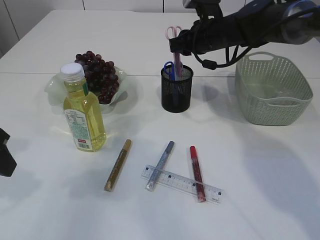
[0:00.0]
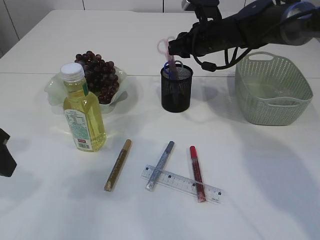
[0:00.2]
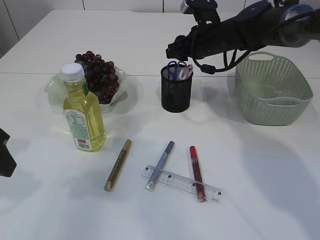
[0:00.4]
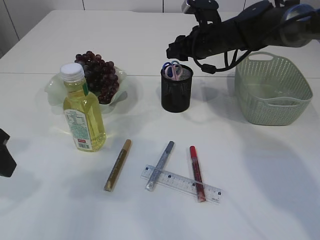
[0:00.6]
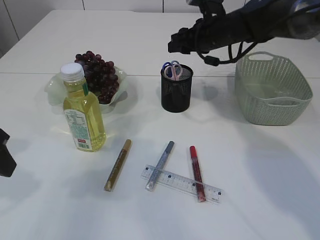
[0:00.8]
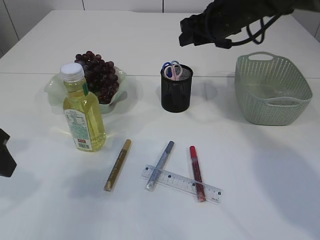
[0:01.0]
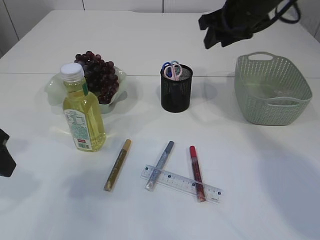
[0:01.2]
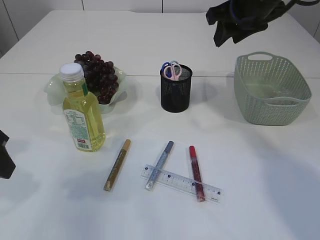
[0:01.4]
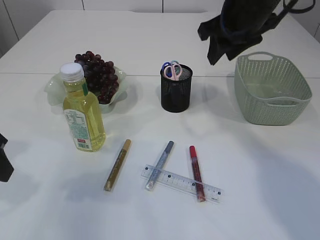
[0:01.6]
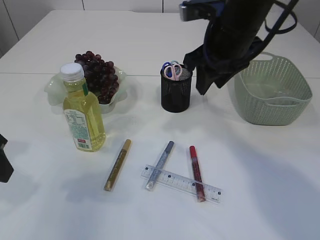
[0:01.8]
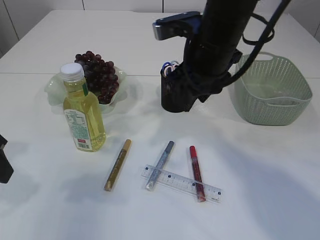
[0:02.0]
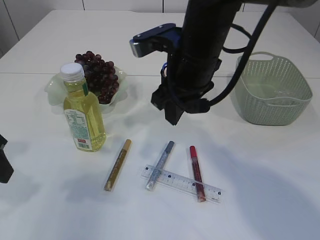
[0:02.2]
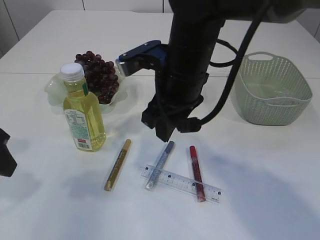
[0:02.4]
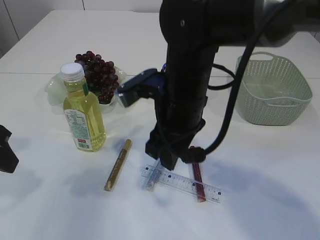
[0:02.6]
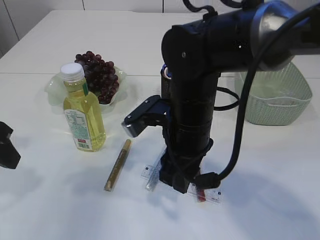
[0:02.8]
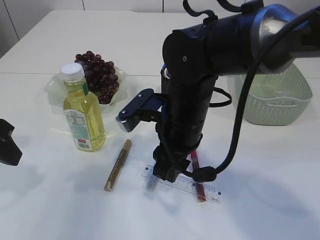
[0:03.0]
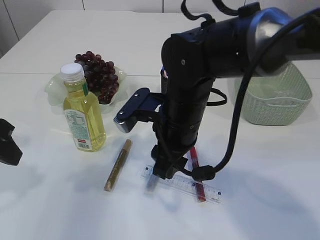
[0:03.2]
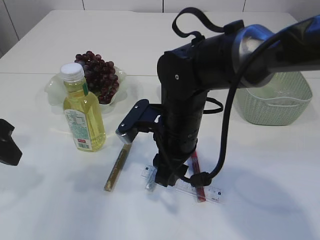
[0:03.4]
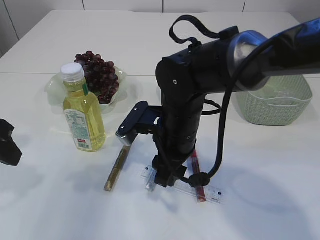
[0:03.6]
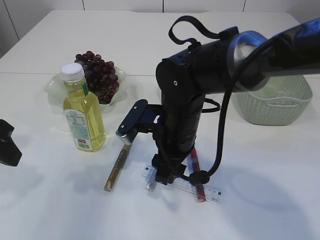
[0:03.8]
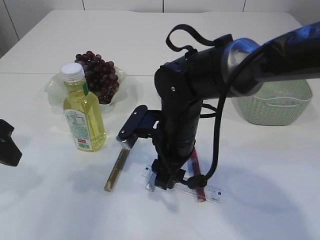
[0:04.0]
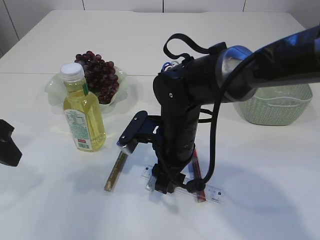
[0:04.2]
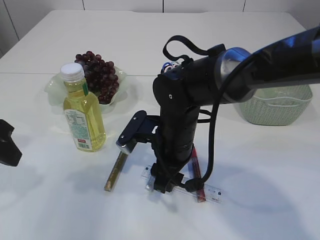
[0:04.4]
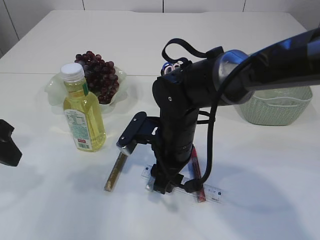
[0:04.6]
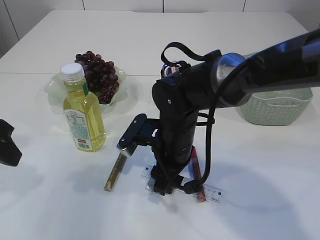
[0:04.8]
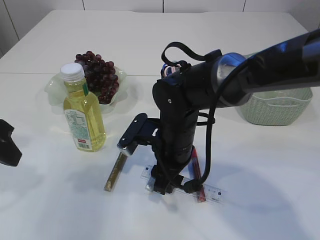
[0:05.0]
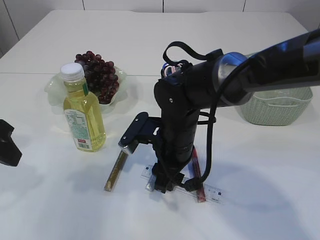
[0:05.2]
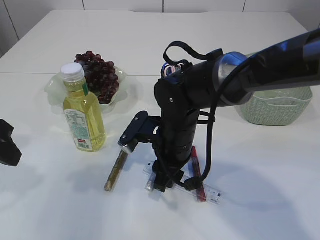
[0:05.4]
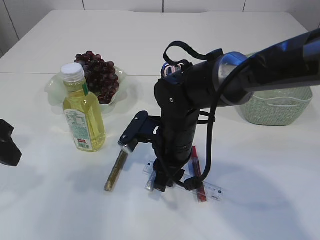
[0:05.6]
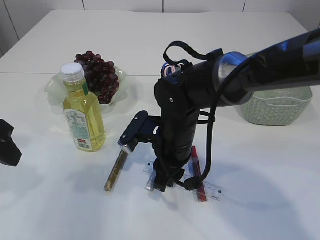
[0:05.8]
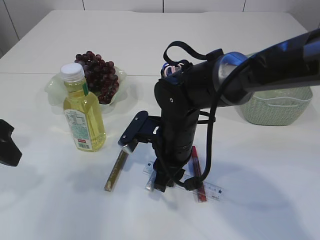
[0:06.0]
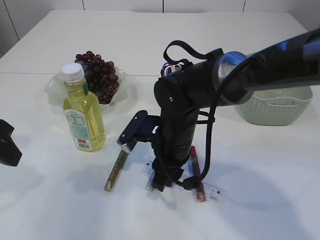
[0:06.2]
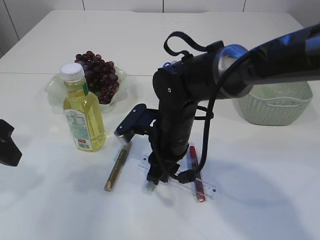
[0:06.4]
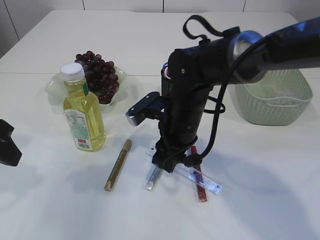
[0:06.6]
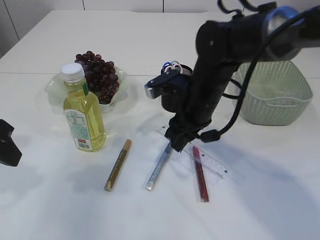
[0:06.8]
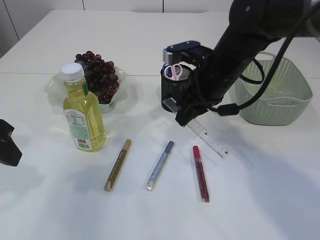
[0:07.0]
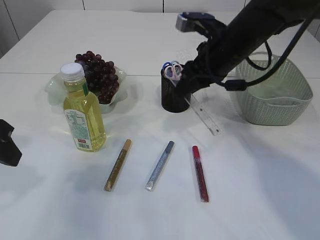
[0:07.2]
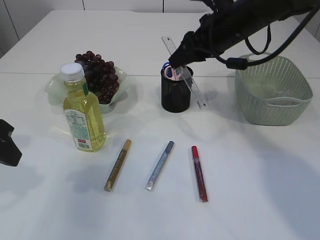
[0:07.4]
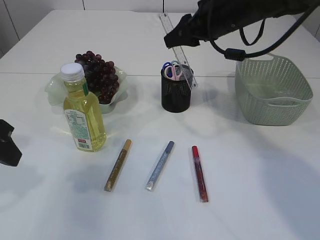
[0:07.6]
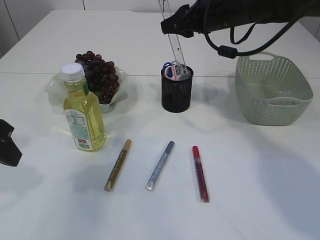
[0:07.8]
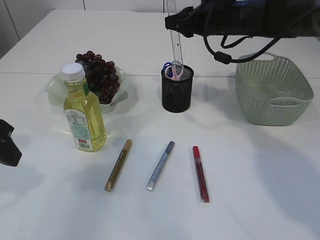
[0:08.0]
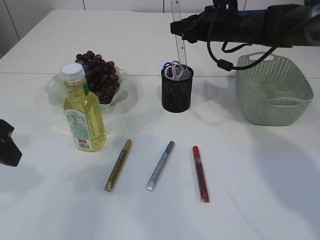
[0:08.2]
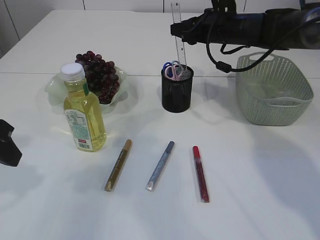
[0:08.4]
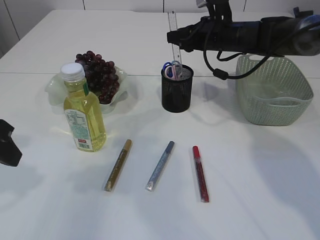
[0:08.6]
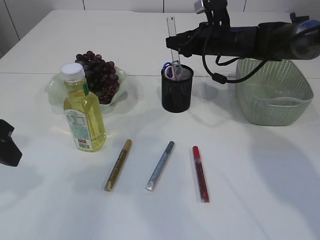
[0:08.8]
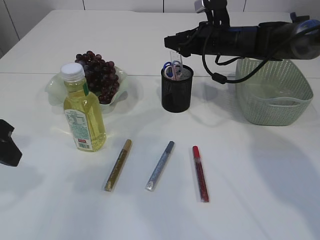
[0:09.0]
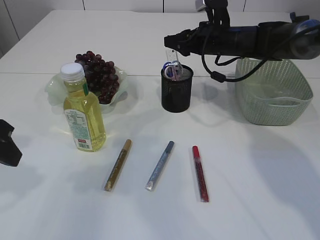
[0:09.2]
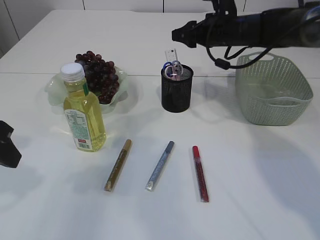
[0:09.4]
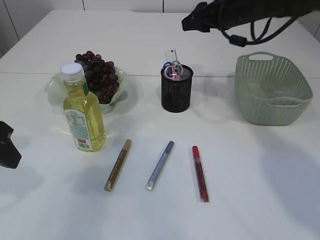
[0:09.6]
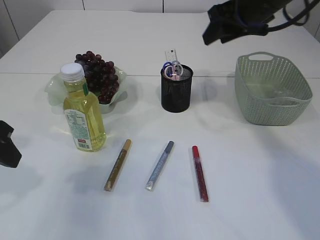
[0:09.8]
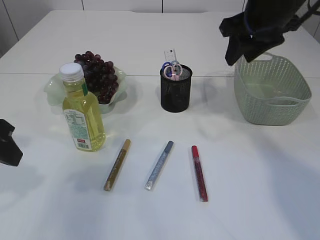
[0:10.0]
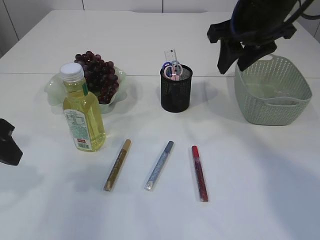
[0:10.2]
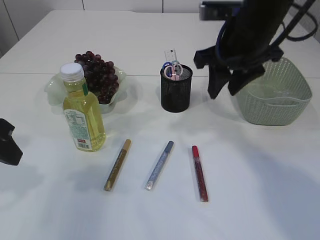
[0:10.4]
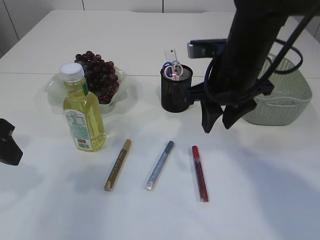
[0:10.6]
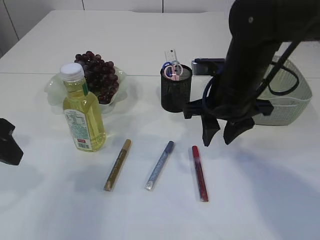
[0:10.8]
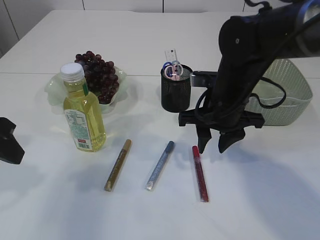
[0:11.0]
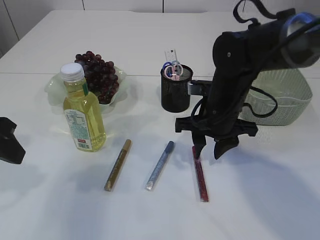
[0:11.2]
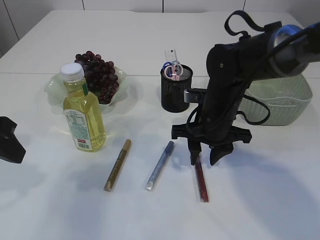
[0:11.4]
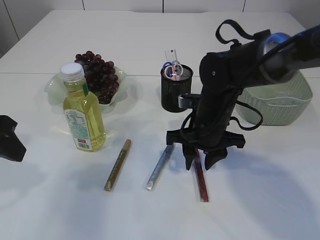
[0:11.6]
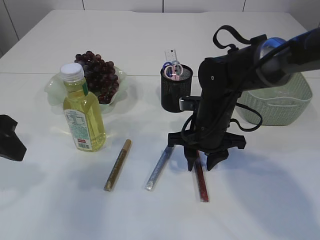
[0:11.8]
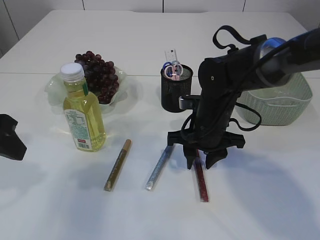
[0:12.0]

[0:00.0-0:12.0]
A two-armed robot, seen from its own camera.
Step, 0:01.0 to 0:06.6: pick up the ruler.
Step, 0:06.8 to 0:09.4: Place the ruler into the pen holder.
0:00.0 to 0:01.6: The right gripper moves backward and upward, roughly 15 cm.
0:01.6 to 0:03.0: The right gripper travels downward, to the left and backward by some 20 cm.
0:03.0 to 0:04.4: The right gripper goes about 5 cm downward.
0:04.4 to 0:06.0: Both grippers stay put.
0:06.0 to 0:07.6: The right gripper is displaced upward, to the right and forward by some 20 cm.
0:07.6 to 0:09.0: The right gripper shifts roughly 10 cm downward and forward.
0:09.0 to 0:10.4: The right gripper heads backward and upward, covering approximately 15 cm.
0:10.4 to 0:12.0: The right gripper moves downward, about 15 cm.

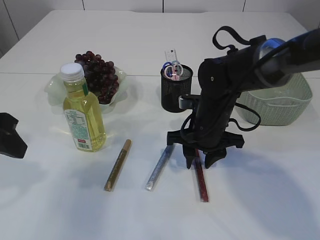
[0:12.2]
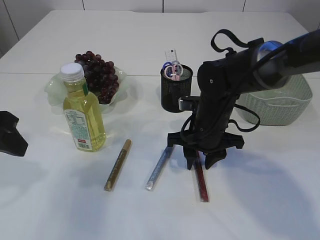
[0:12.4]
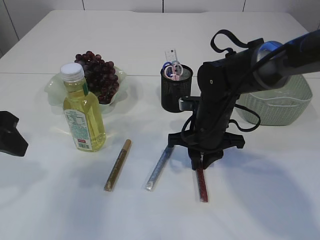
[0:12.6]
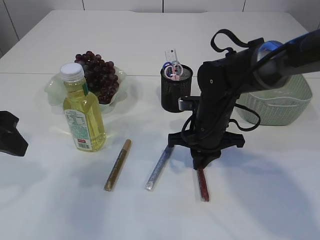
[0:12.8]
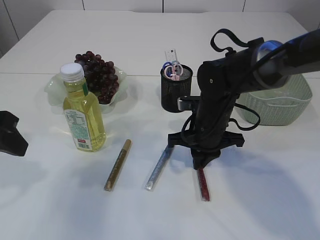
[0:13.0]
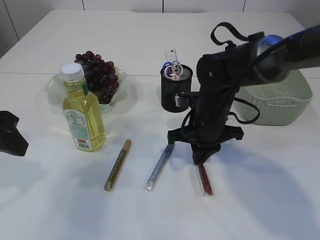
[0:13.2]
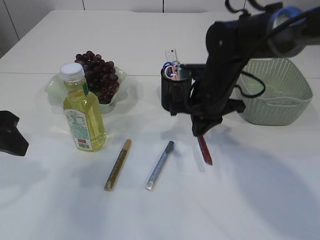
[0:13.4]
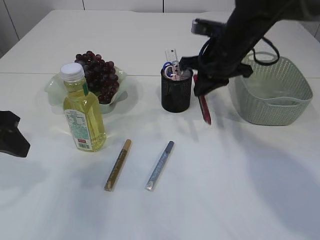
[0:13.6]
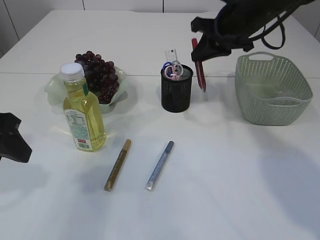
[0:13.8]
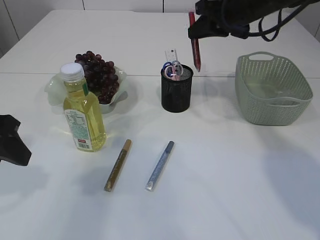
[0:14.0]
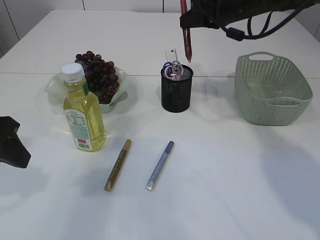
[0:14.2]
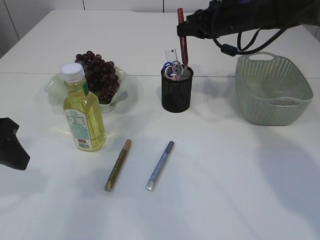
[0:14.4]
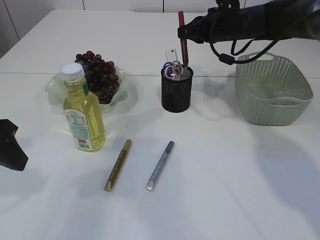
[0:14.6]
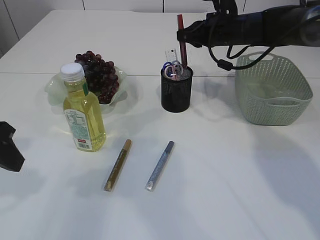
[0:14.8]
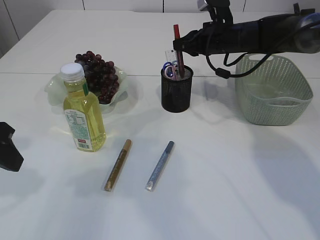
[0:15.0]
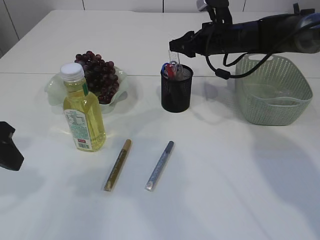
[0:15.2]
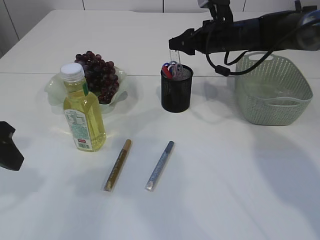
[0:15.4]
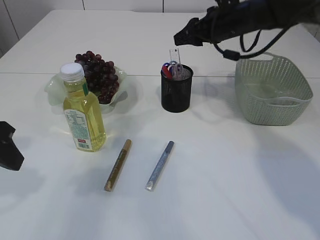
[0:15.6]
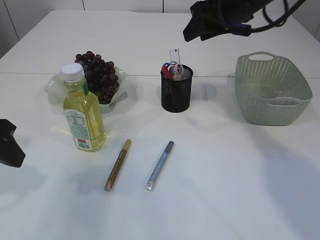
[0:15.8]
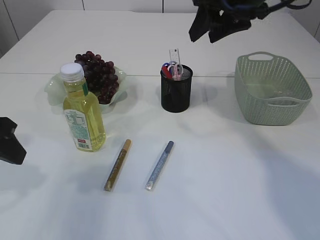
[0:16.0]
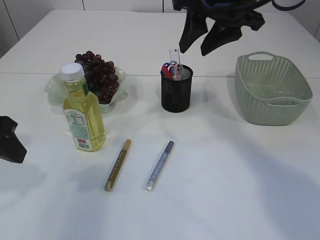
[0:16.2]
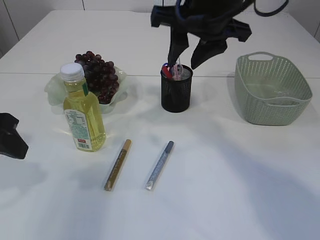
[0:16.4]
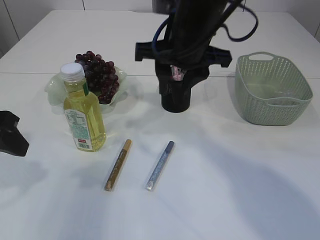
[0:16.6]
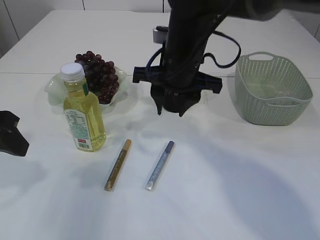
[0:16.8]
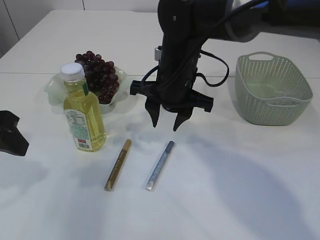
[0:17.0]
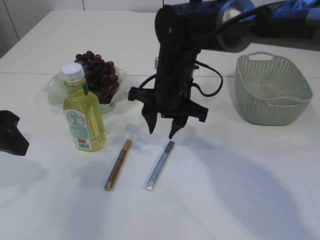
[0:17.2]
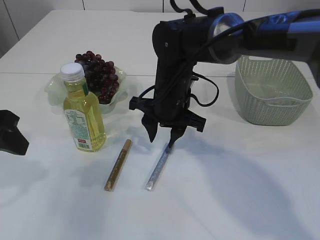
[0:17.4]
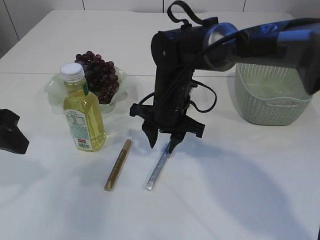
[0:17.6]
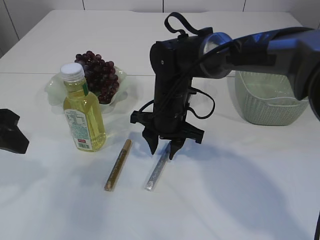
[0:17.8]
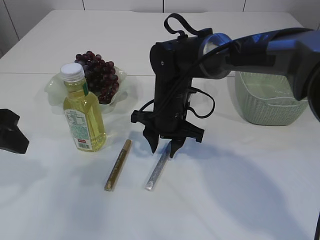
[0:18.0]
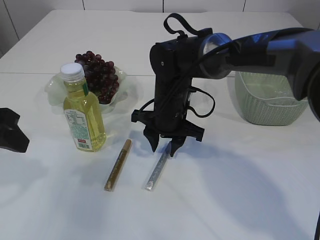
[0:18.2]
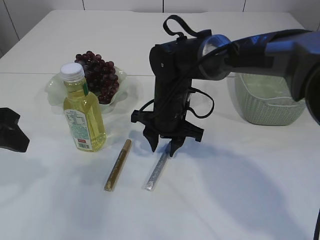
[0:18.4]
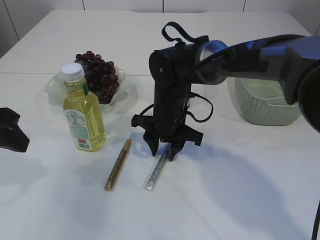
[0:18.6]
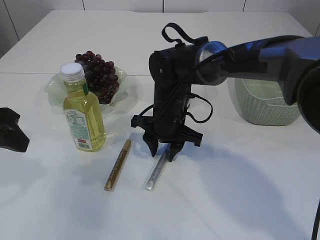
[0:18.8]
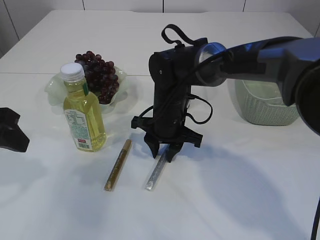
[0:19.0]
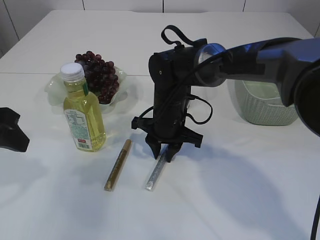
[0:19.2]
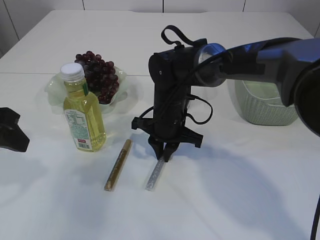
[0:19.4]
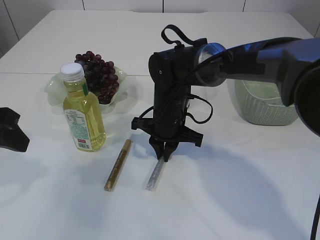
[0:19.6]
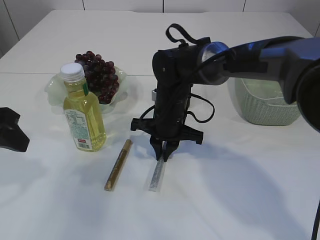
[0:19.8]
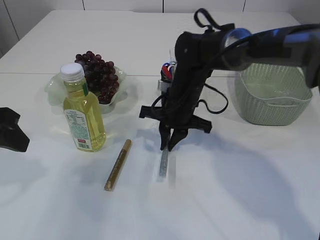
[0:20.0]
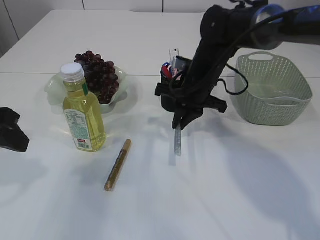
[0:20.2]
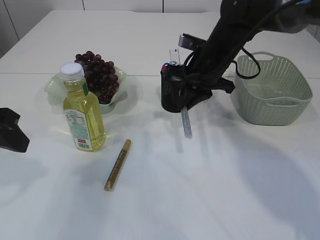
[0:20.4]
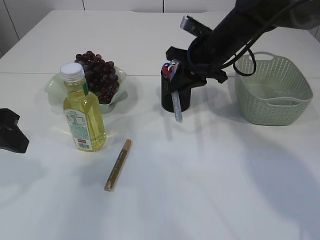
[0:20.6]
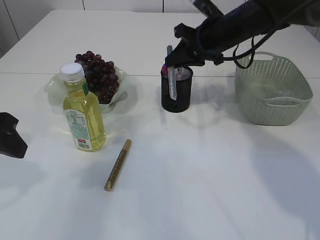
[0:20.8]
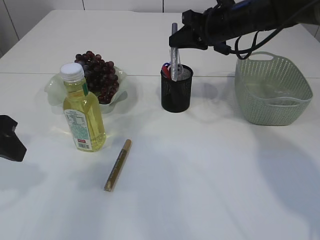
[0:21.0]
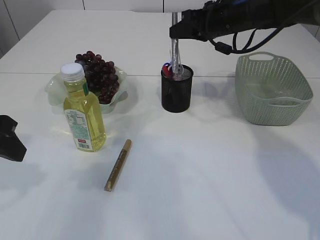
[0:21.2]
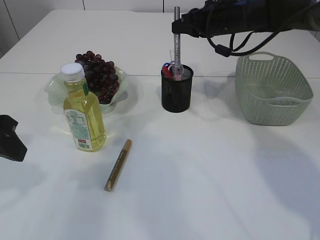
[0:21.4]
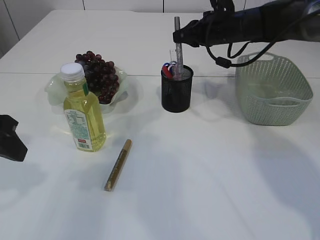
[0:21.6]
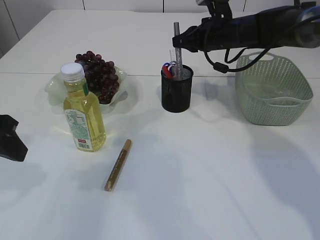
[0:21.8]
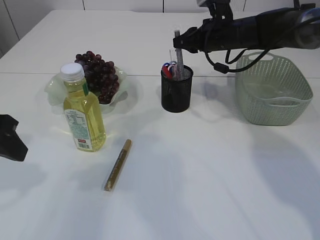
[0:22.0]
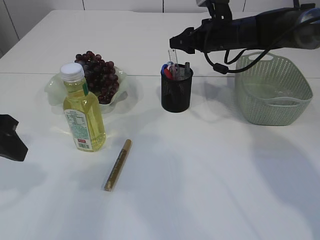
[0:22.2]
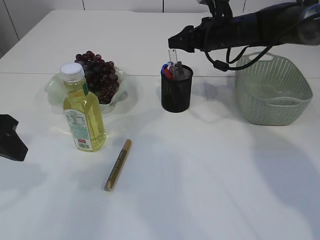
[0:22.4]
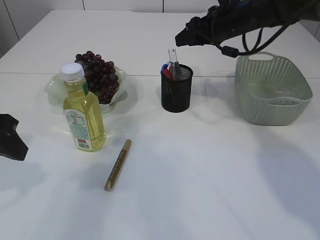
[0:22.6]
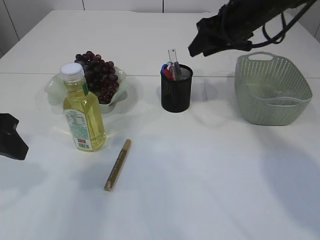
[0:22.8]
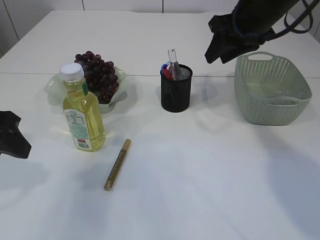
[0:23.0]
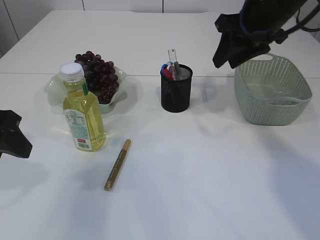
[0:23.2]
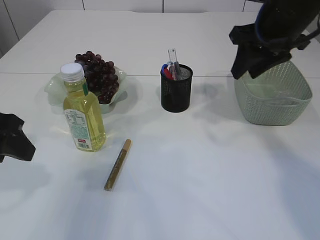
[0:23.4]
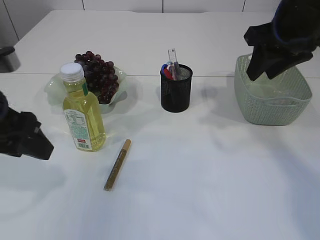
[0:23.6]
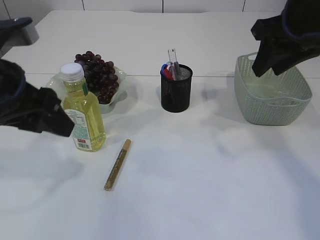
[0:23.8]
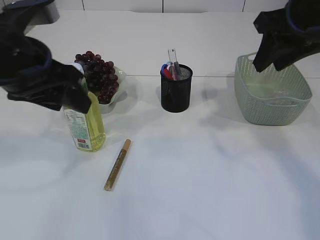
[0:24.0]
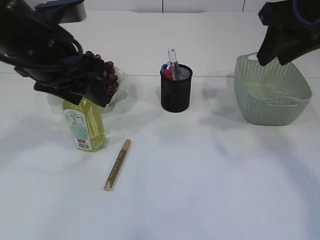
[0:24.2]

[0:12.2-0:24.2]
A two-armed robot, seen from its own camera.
Step, 0:13.6 to 0:15.6: place the red glue into the pen holder.
Step, 0:15.8 to 0:20.2: pick up the silver glue.
Step, 0:20.4 to 0:22.8: place the silver glue into the pen holder.
0:12.2 to 0:13.8: The right gripper moves upward, forward and to the right, about 20 cm, and closes its fingers.
0:13.8 to 0:15.2: The right gripper travels forward and downward by some 10 cm, and opens.
0:15.2 to 0:16.6: The right gripper heads backward, to the left and upward, covering some 20 cm.
0:16.6 to 0:18.2: The right gripper moves downward, approximately 15 cm.
0:18.2 to 0:19.8: The right gripper closes.
0:19.8 to 0:21.2: The right gripper goes approximately 20 cm upward, to the right and forward.
0:21.2 to 0:22.6: The right gripper opens.
0:22.6 to 0:24.2: The left gripper is displaced to the right and forward by some 10 cm. Meanwhile the right gripper shifts about 20 cm backward and upward.
